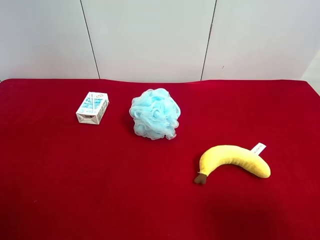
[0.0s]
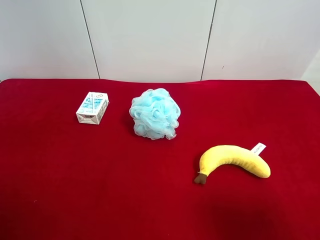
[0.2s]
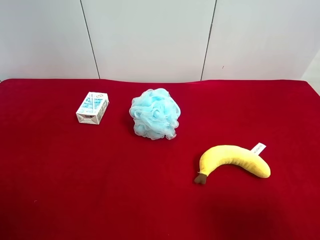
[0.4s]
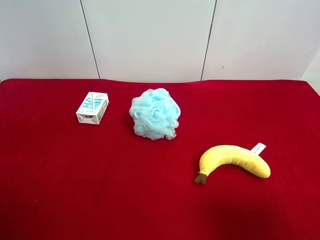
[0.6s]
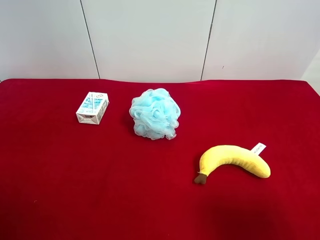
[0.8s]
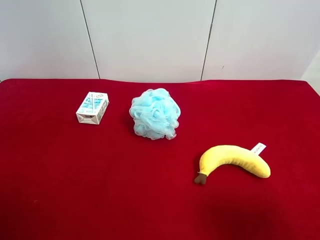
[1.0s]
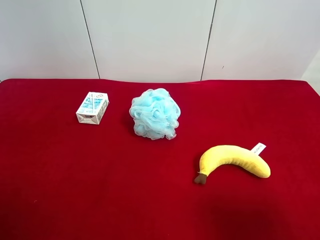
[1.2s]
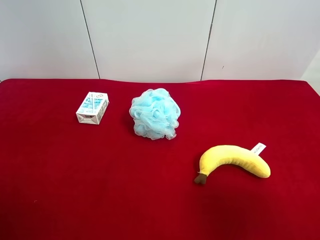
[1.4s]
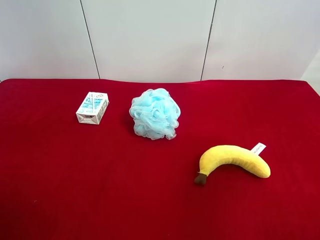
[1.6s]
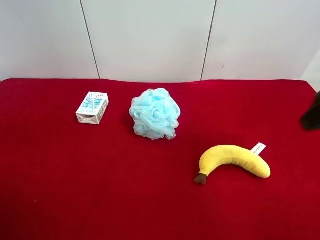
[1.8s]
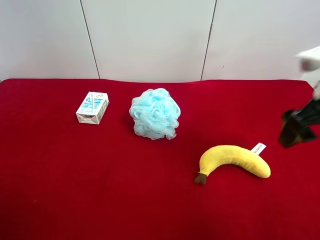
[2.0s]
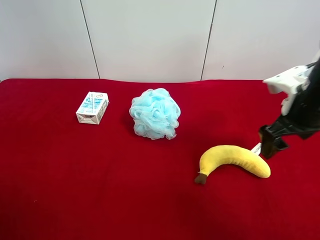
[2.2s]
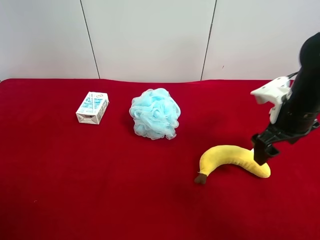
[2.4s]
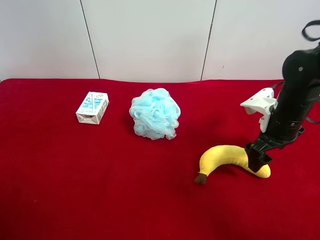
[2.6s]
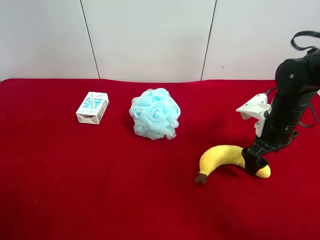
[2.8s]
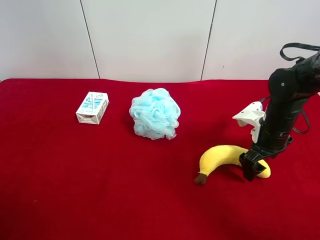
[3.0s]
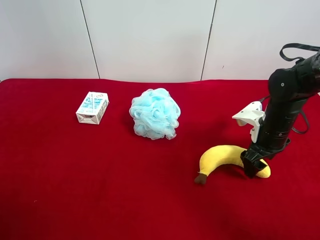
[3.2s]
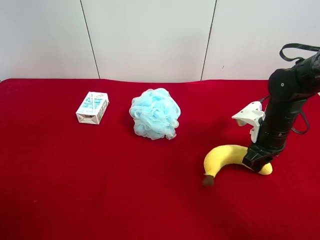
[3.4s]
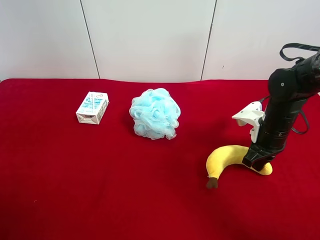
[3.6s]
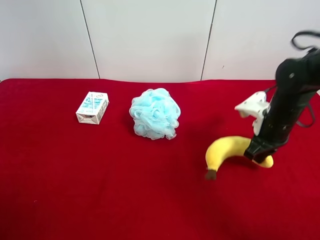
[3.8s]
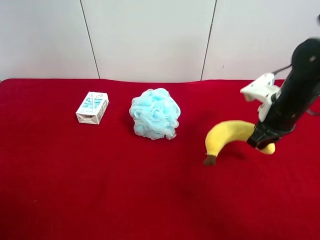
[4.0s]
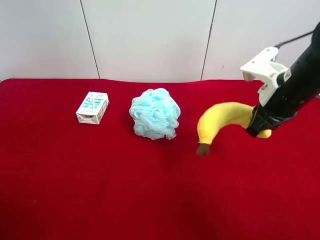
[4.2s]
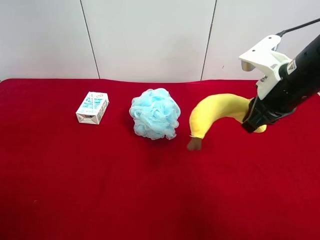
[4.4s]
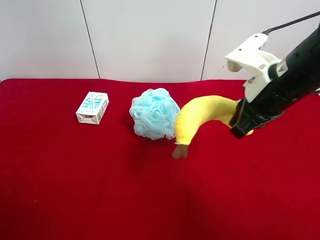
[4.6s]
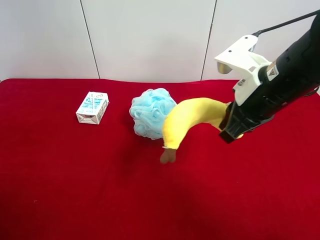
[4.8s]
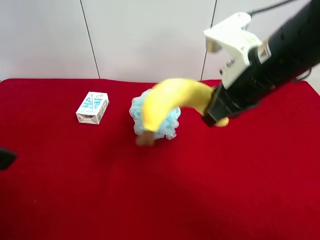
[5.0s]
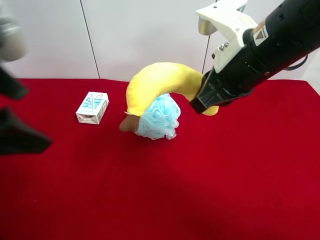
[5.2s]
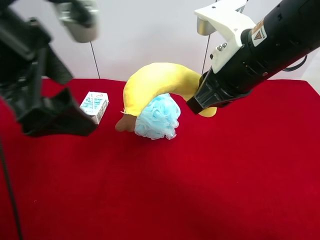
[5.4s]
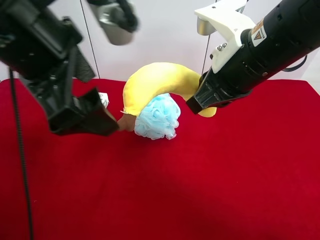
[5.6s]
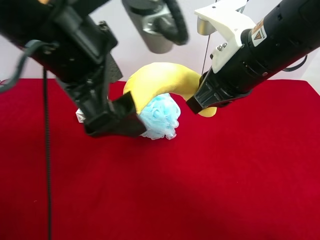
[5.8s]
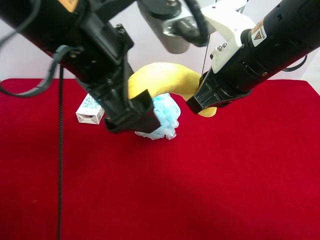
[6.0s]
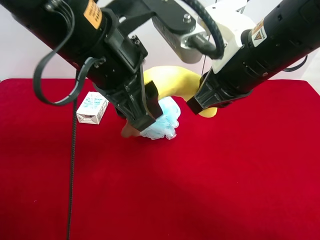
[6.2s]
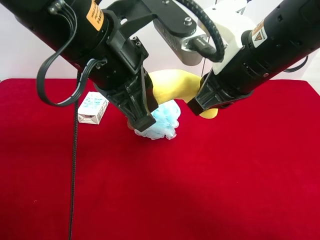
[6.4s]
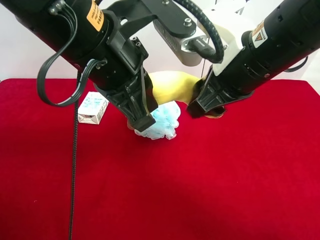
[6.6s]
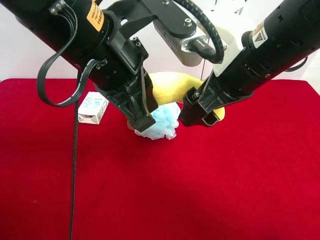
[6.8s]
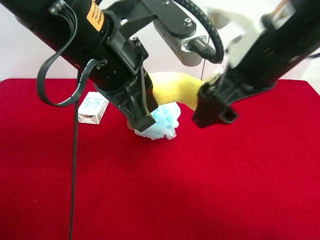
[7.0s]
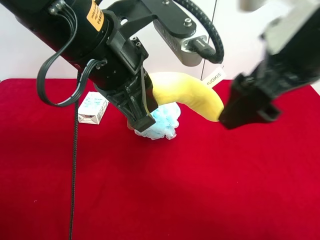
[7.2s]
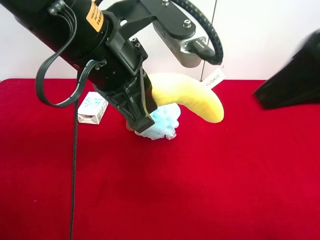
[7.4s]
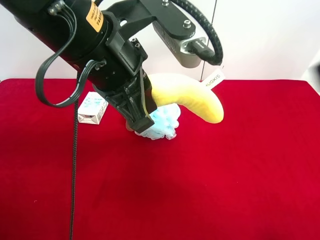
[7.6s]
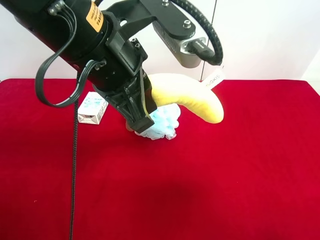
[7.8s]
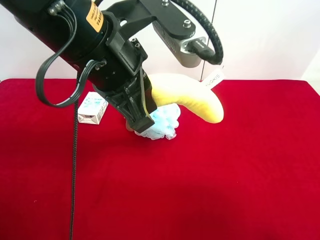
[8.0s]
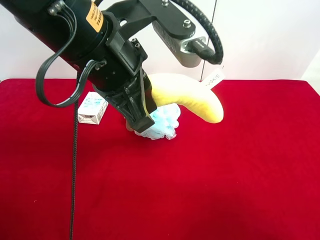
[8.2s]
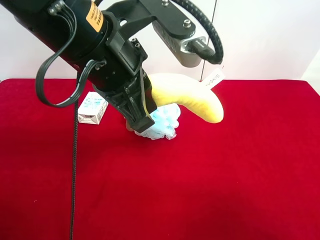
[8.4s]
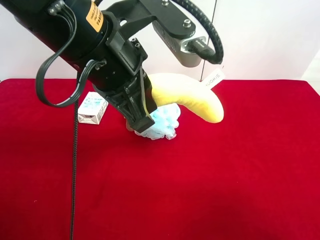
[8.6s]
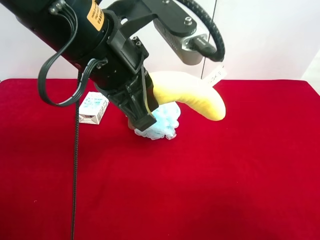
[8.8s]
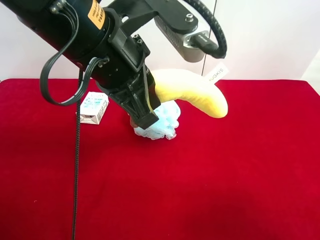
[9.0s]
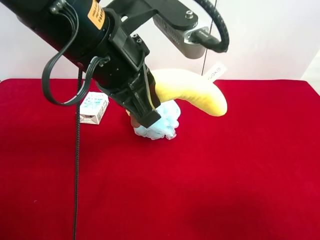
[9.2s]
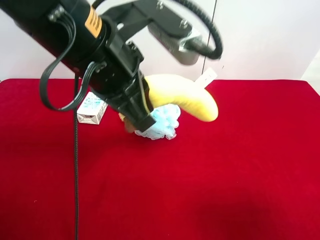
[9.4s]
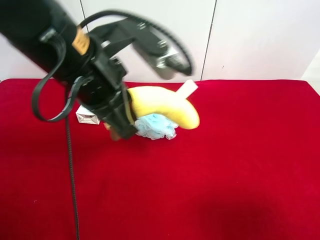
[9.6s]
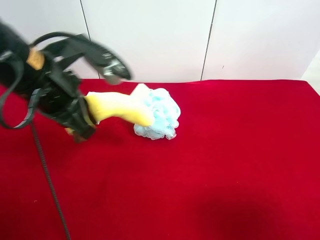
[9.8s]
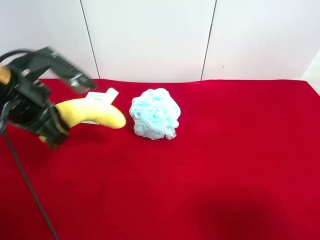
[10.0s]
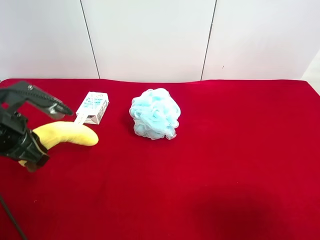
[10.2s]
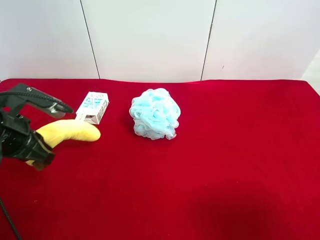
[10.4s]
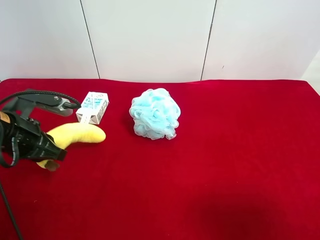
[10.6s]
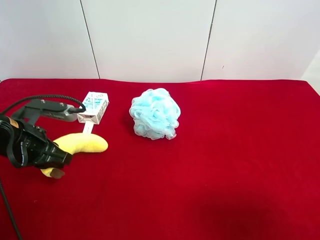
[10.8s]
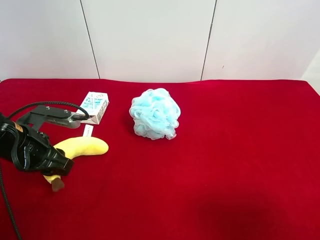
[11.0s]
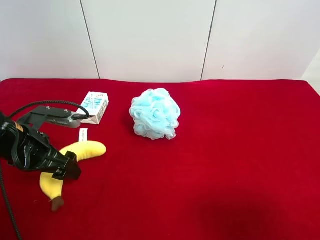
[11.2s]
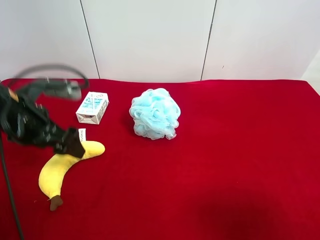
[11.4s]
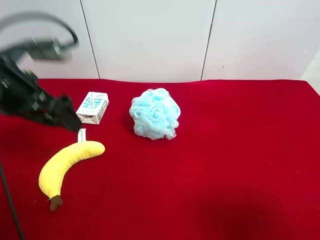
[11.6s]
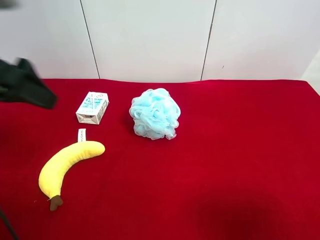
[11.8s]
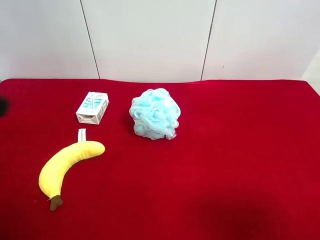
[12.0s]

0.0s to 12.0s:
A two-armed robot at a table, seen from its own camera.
Task of the whole recording: use the right gripper to pick up the item and transfer it from the right gripper to the left gripper.
Step, 0.0s to 3.4s: Use the right gripper to grab the plush banana on the right side of the table.
Step, 3.6s to 6.8s: Pass the plush banana to the left gripper.
Step, 7.0s to 11.2s: The left gripper places plush banana on the left side of the table.
0.0s to 1.6s: The right gripper travels forward and upward by roughly 10 cm.
1.6s to 3.0s: The right gripper moves downward and forward, some 30 cm.
3.0s to 4.4s: The right gripper travels upward by some 15 cm, and closes its fingers.
4.4s to 6.0s: The left gripper goes roughly 30 cm to the right and forward; the right gripper goes some 10 cm to the left and upward.
6.0s to 7.6s: The right gripper heads backward, upward and to the right, covering about 20 cm, and opens; the left gripper closes up.
7.6s to 9.0s: The right gripper is displaced downward, backward and to the right by about 20 cm.
9.0s to 10.4s: The left gripper heads to the left and downward, covering approximately 25 cm.
10.4s to 12.0s: The left gripper is displaced upward and backward by about 20 cm, and opens its fingers.

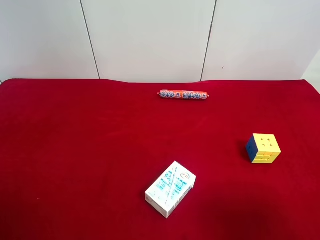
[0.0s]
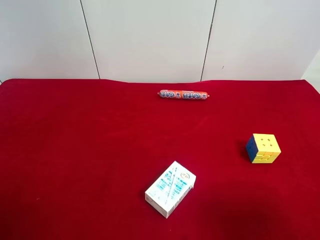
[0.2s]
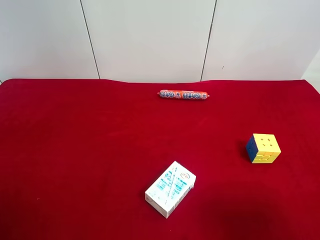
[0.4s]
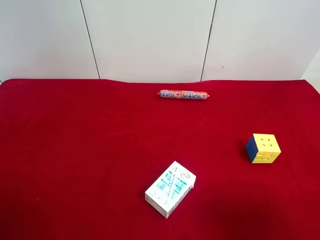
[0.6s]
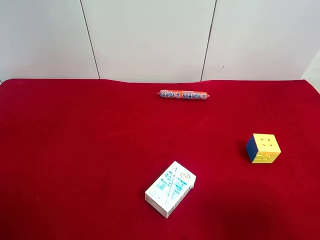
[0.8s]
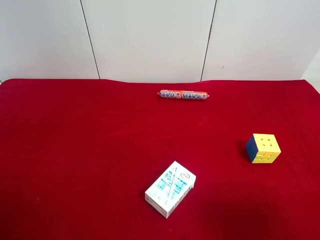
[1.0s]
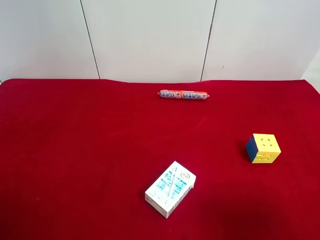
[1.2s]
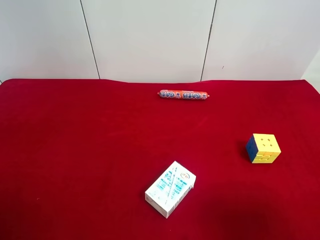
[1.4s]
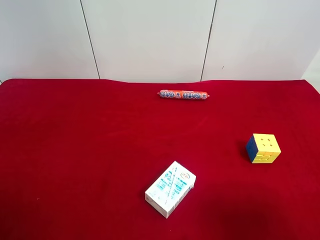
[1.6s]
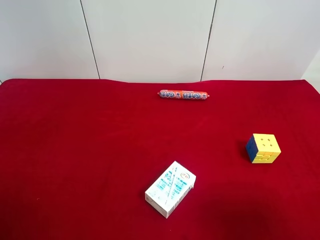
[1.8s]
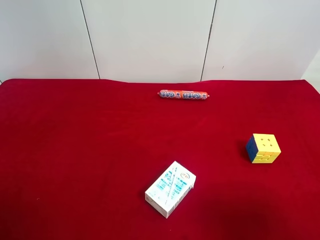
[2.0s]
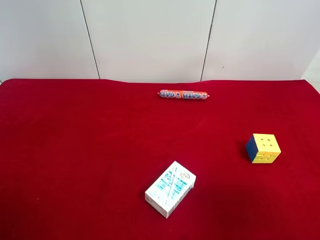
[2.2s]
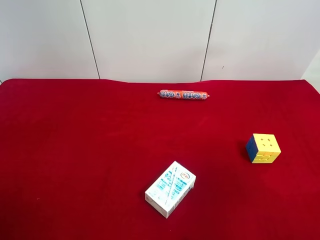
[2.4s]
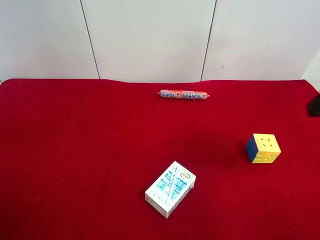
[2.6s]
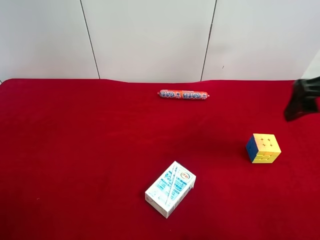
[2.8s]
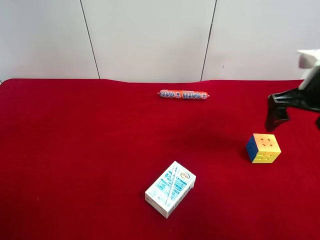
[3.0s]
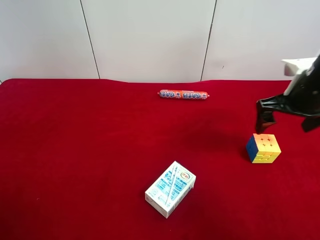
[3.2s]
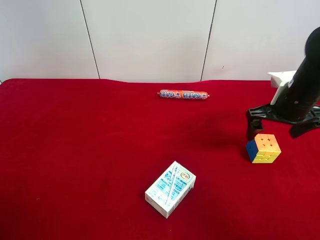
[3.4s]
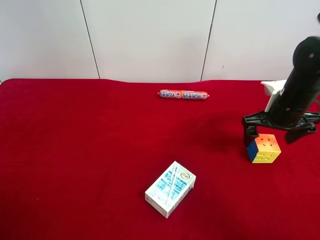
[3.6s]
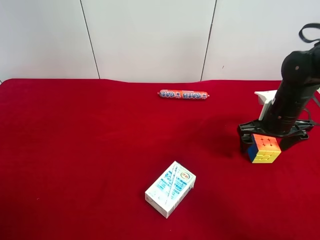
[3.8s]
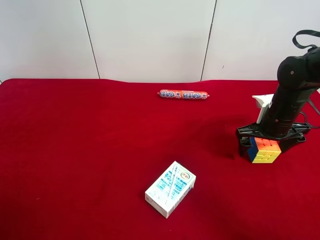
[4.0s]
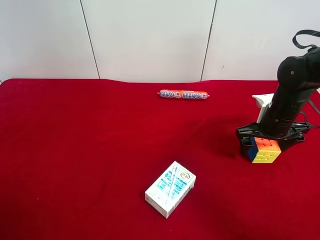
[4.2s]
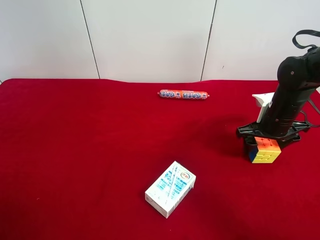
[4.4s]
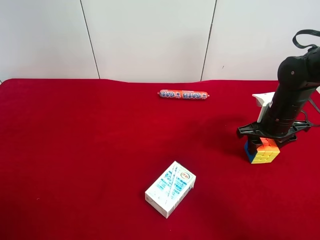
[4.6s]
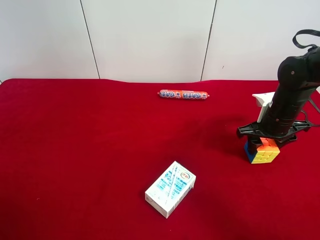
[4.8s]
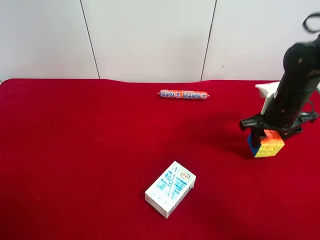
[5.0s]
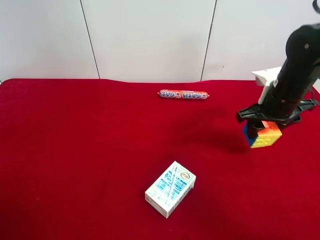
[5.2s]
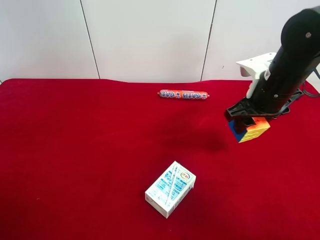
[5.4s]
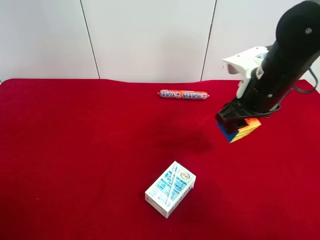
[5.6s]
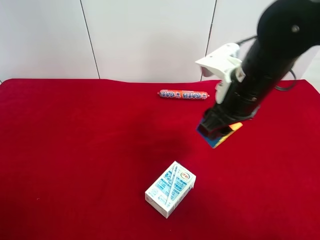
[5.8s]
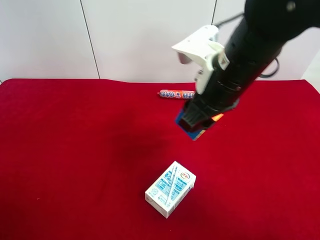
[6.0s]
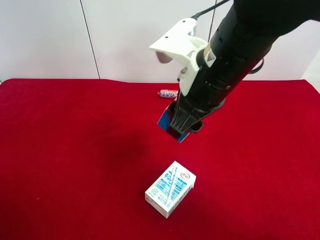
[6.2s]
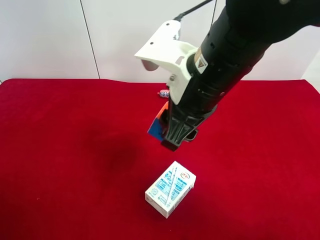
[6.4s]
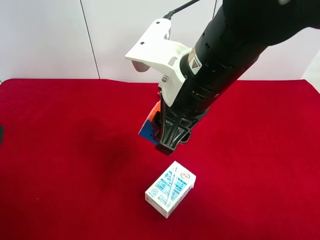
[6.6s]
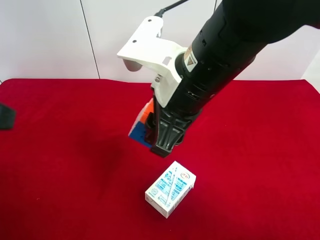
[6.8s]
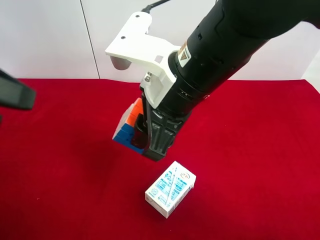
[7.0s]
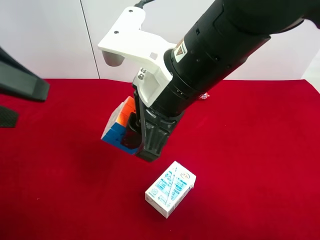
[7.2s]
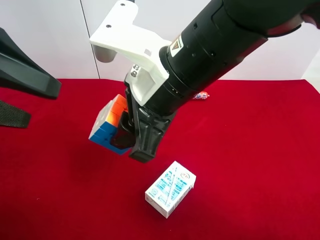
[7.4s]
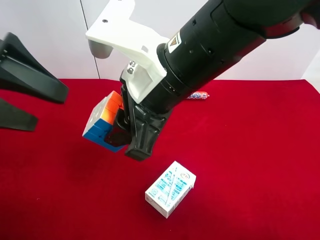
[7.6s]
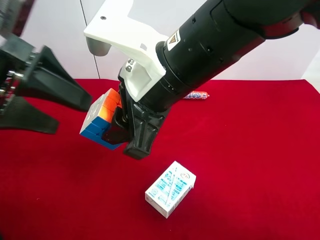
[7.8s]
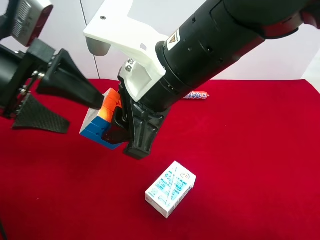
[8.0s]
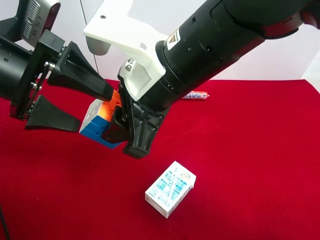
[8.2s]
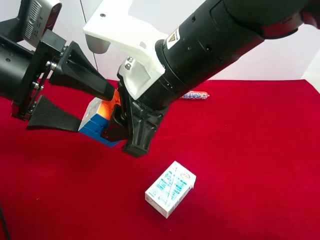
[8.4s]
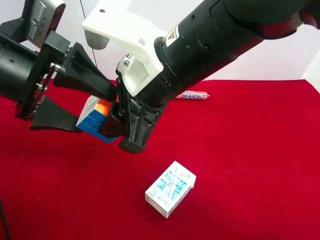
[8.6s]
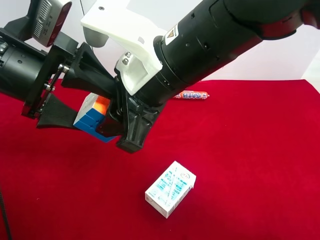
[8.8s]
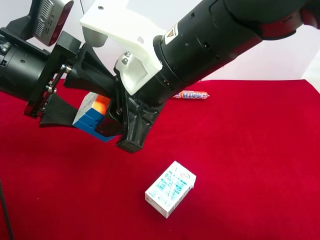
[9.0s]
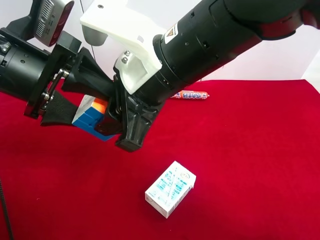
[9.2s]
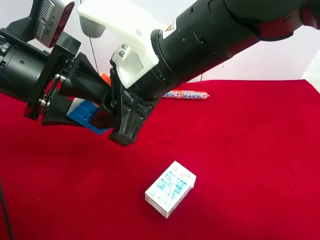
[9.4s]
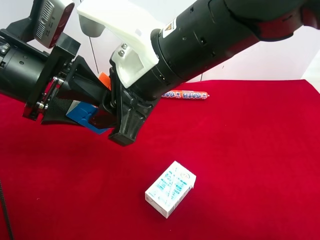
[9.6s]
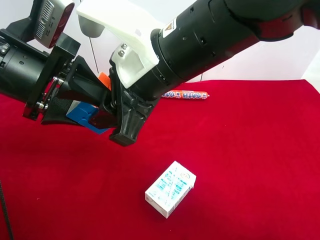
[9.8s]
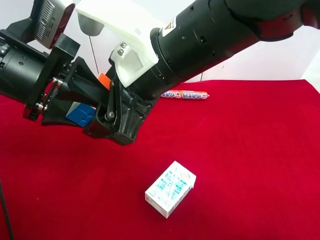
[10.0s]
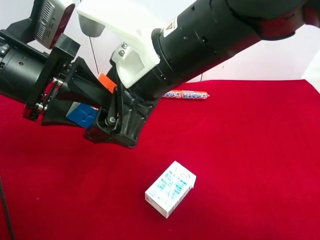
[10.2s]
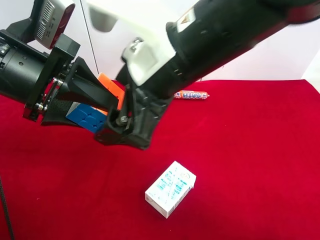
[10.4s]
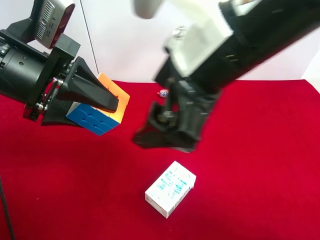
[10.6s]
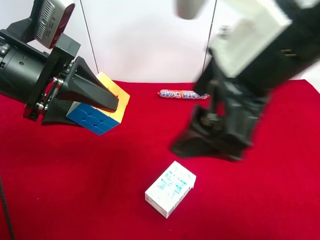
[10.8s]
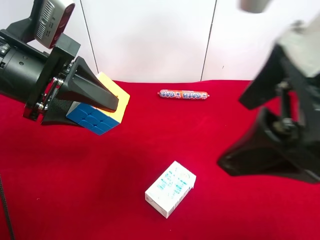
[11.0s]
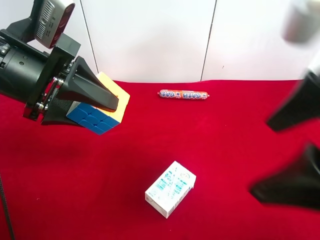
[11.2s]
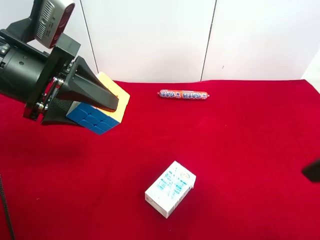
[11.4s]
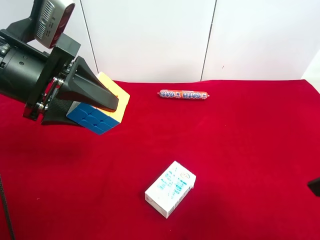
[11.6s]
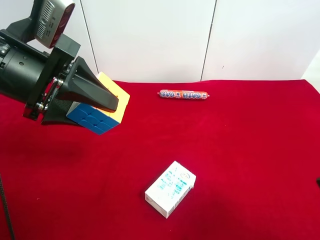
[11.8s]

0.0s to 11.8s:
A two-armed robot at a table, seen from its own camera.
Task of the whole recording: use the right gripper to pick up the item and transfer it from the right gripper to the left gripper.
Step, 0.0s to 4.4s: Use the right gripper to grab the Rubik's Cube on the right side of the table.
Step, 4.6s to 10.0s: Pass the Rubik's Cube to the left gripper.
0.0s to 1.4s: Both grippers stay about where they are.
1.4s to 3.0s: The right gripper heads forward, covering about 25 cm.
3.0s to 4.4s: The right gripper moves downward and forward, about 15 cm, and closes up.
4.4s to 6.0s: The right gripper goes approximately 25 cm to the left, upward and backward, and closes up.
6.0s to 7.4s: The right gripper travels to the left by about 5 cm. The left gripper goes roughly 15 cm forward.
7.4s to 8.8s: The left gripper goes approximately 5 cm to the right.
8.8s to 10.4s: The right gripper opens up, while the left gripper closes.
10.4s to 11.8s: The right gripper travels to the right and backward by approximately 30 cm.
